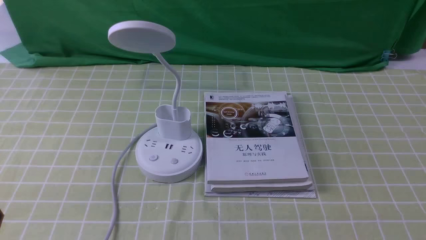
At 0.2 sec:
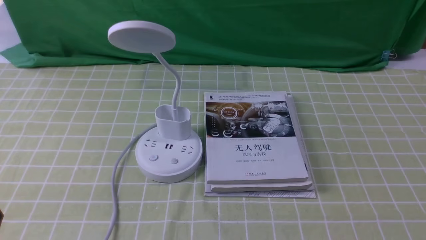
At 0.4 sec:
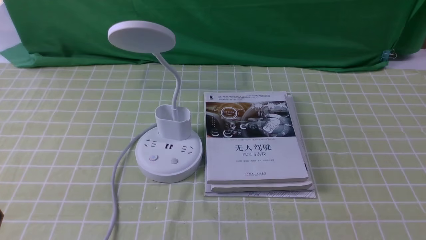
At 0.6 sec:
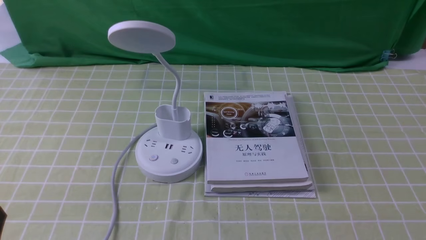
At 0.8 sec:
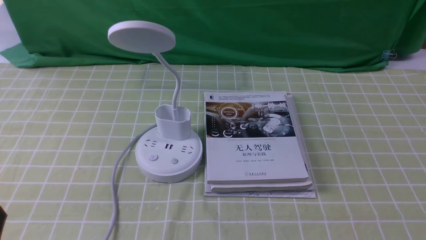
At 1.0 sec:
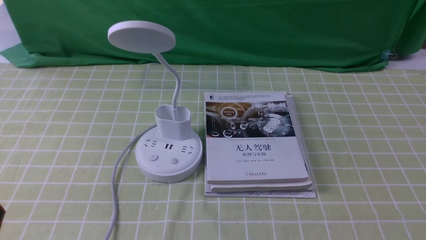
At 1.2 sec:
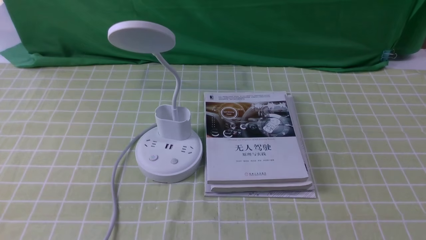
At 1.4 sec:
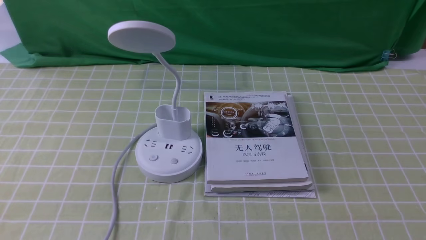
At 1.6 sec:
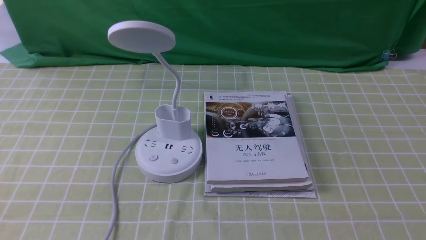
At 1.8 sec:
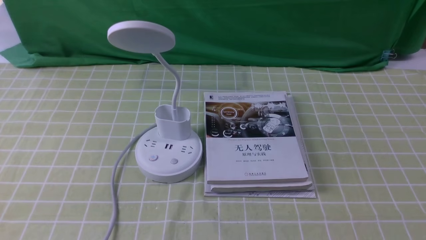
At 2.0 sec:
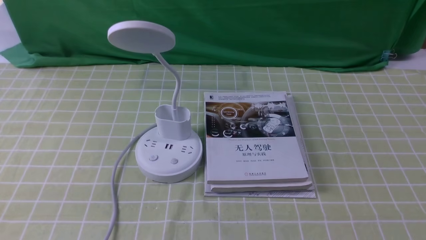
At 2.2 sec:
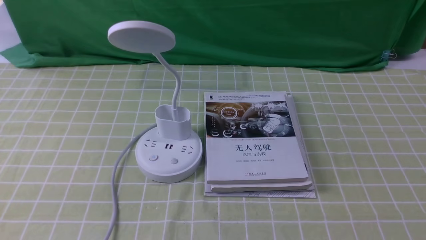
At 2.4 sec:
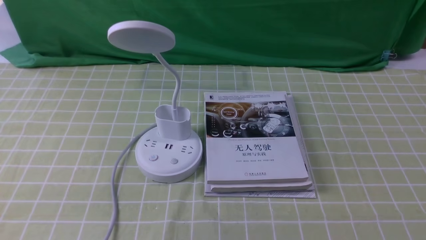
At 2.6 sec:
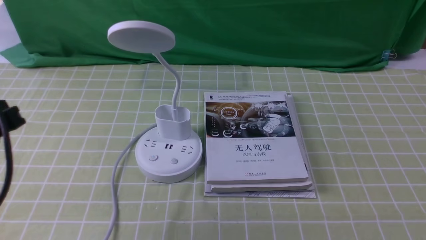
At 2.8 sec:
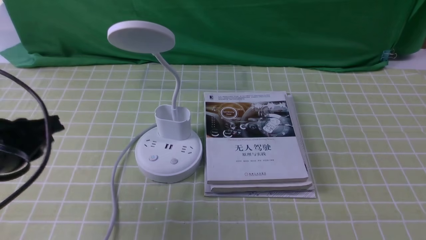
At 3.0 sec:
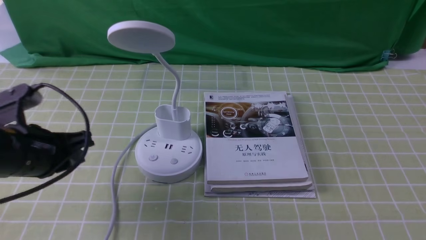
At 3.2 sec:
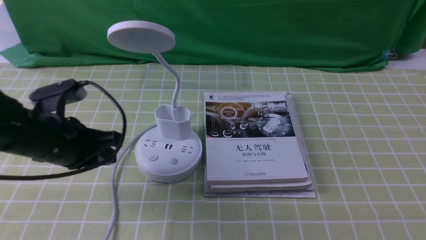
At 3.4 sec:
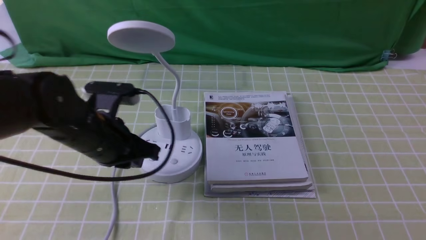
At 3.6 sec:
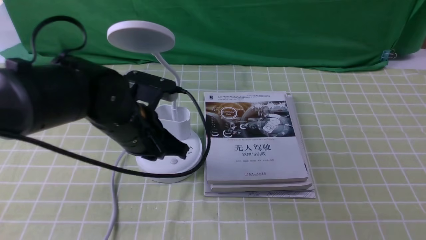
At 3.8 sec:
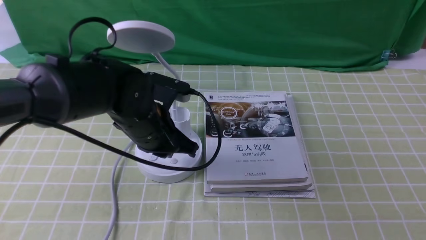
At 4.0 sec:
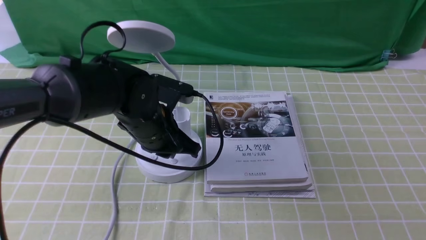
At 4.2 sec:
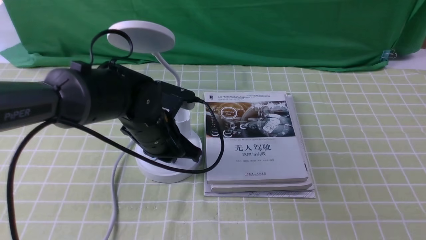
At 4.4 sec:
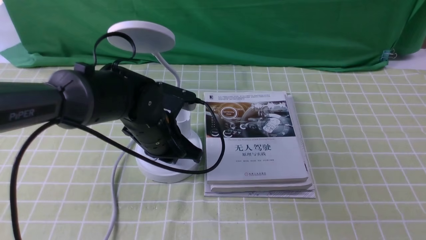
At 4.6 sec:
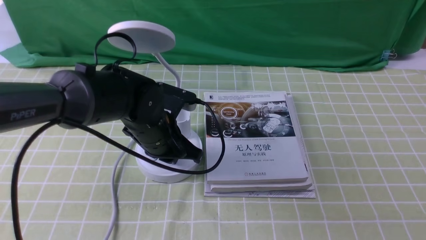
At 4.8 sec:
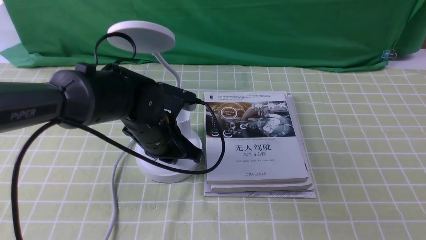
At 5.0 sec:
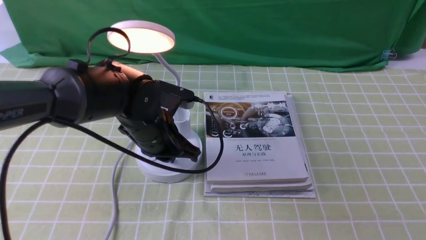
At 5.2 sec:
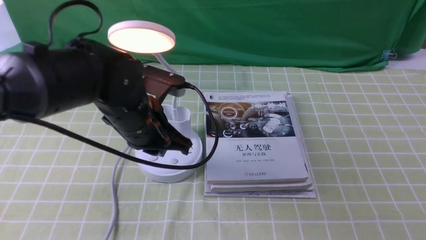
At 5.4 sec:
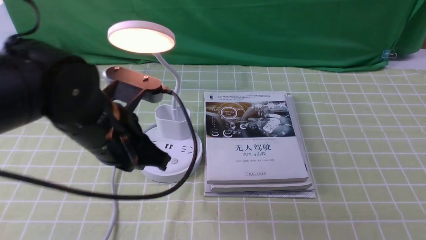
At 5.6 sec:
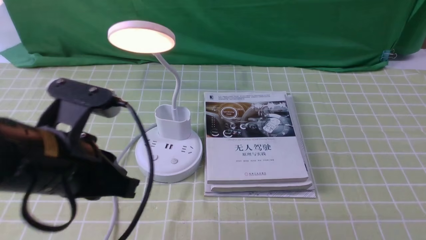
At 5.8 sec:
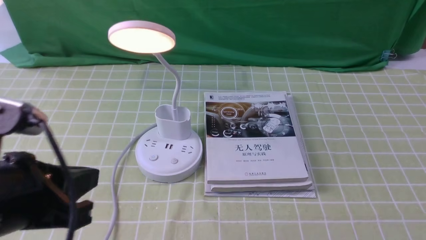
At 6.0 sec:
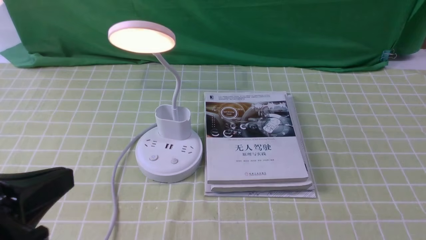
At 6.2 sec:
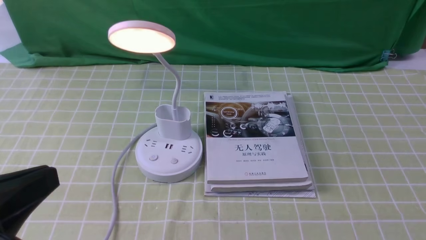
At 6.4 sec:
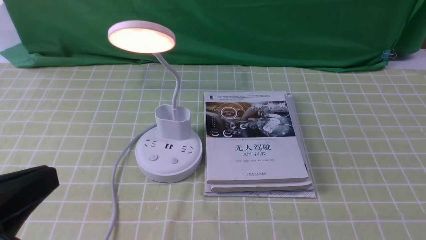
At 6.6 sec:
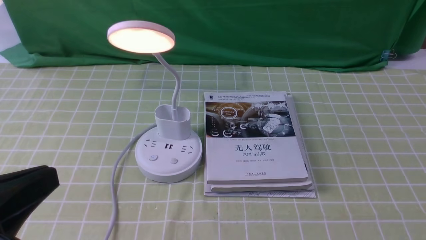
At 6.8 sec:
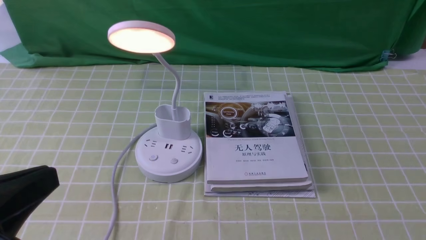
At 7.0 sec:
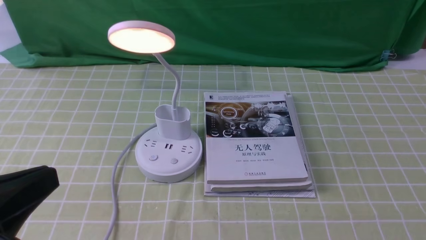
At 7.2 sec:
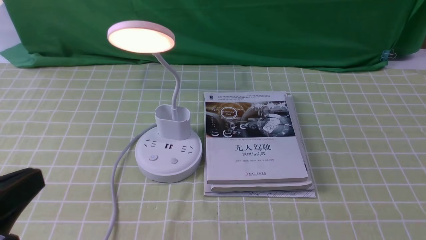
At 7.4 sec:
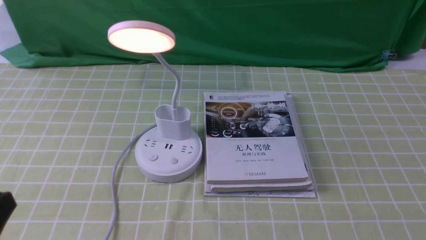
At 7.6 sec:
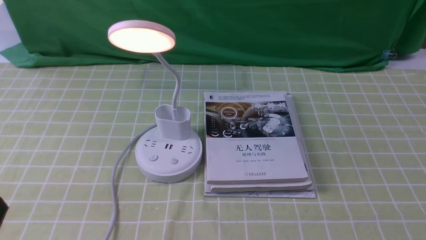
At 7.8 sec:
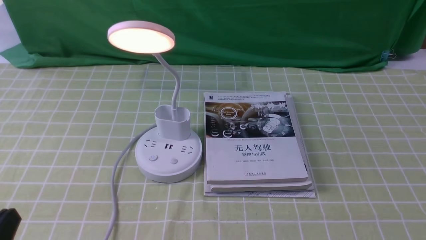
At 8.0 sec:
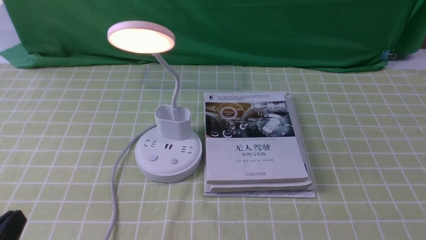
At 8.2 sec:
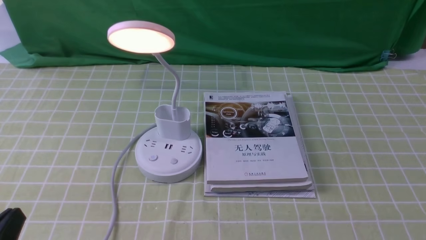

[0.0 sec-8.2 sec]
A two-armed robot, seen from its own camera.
Step, 0.0 sec to 5.2 sec: use the left arm to press the button switch on the lamp holder.
1.6 sec to 3.2 sec: The left gripper is displaced forward by some 20 cm.
3.2 sec to 5.0 sec: The left gripper goes some 10 cm to the right.
5.0 sec to 6.6 sec: The left gripper heads backward, to the left and upward, covering about 30 cm.
6.6 sec to 8.2 sec: The left gripper shifts about 10 cm downward.

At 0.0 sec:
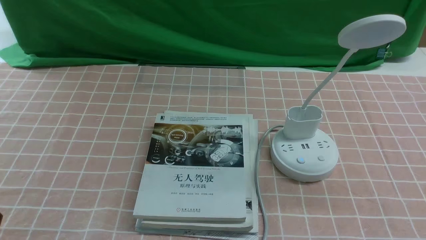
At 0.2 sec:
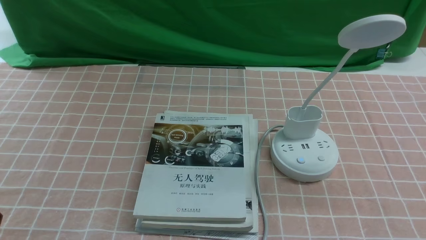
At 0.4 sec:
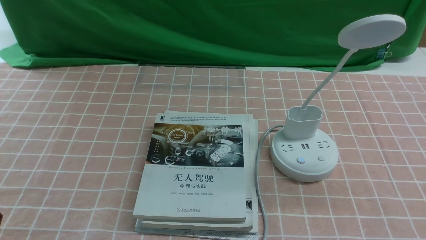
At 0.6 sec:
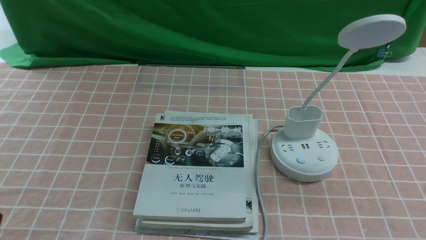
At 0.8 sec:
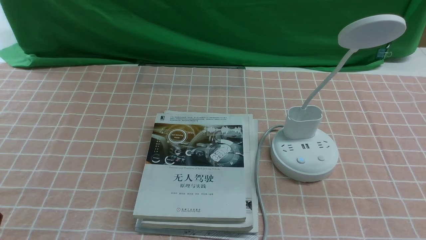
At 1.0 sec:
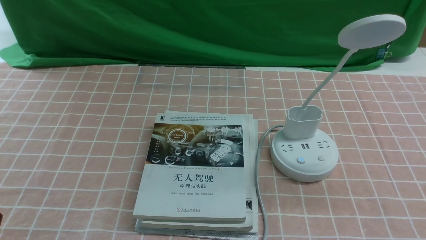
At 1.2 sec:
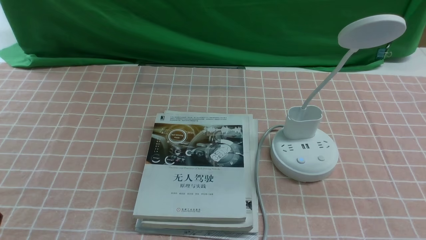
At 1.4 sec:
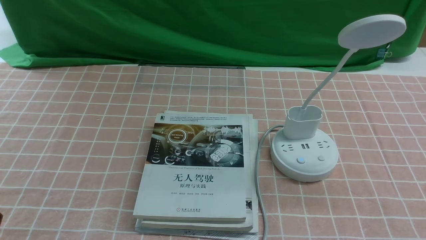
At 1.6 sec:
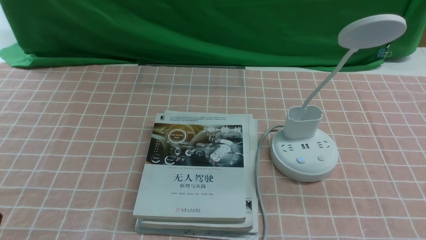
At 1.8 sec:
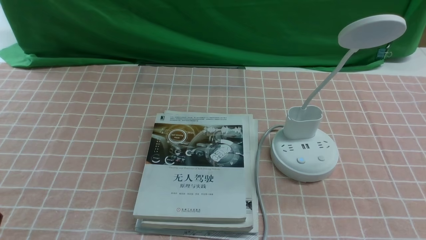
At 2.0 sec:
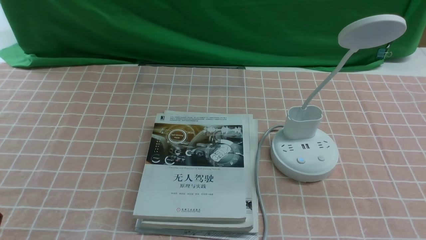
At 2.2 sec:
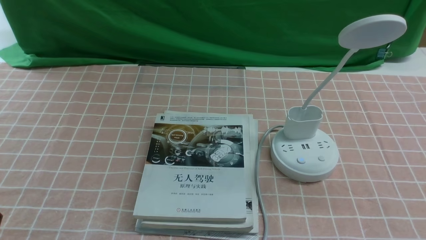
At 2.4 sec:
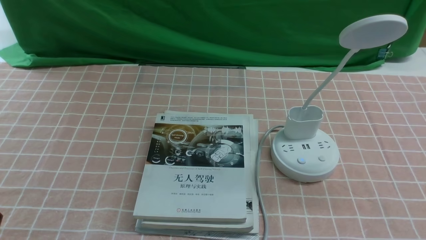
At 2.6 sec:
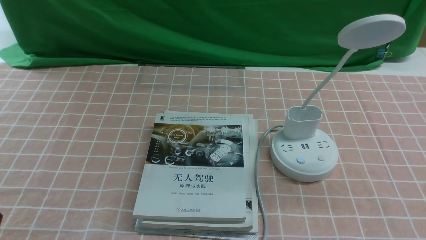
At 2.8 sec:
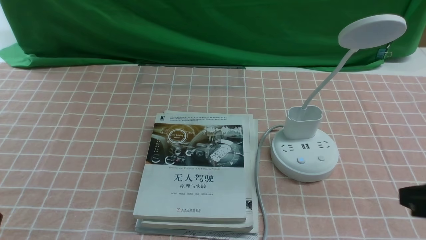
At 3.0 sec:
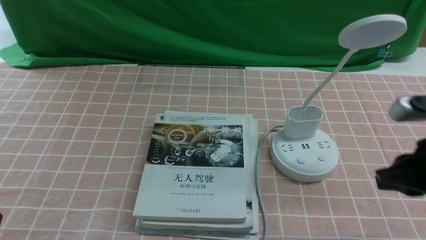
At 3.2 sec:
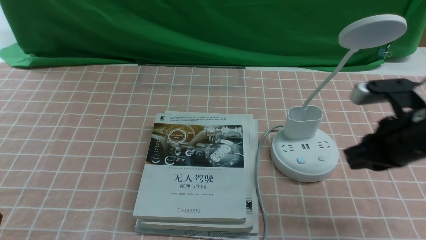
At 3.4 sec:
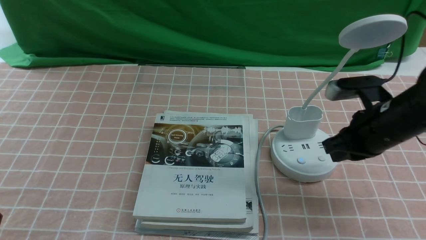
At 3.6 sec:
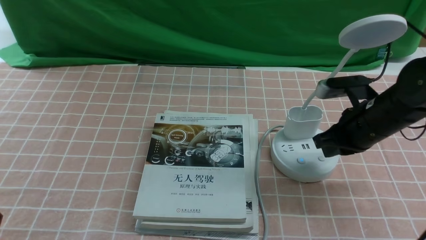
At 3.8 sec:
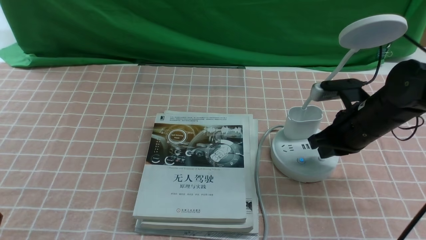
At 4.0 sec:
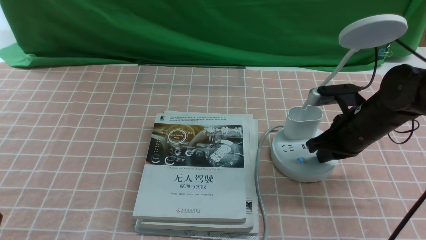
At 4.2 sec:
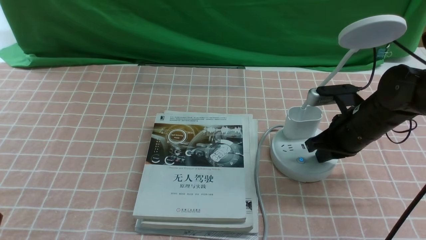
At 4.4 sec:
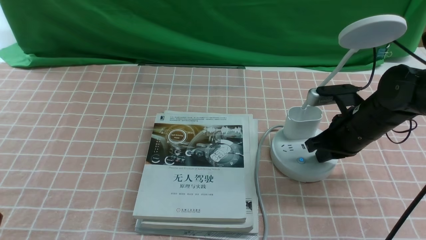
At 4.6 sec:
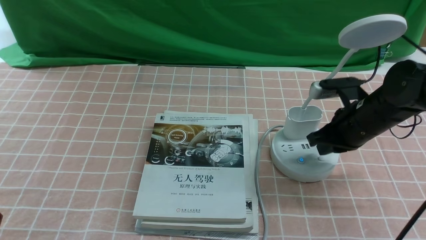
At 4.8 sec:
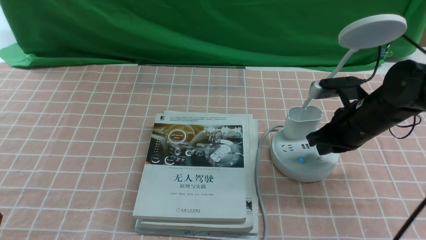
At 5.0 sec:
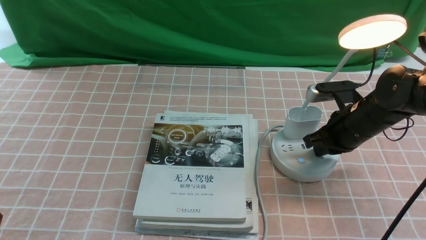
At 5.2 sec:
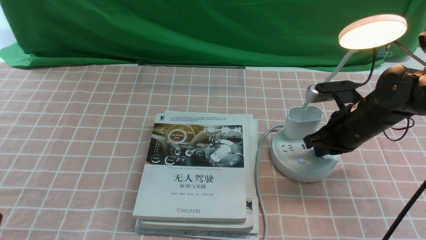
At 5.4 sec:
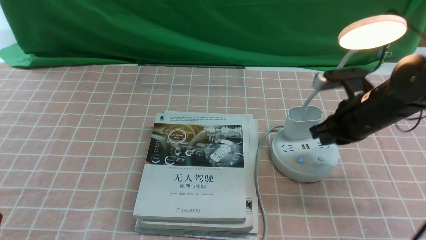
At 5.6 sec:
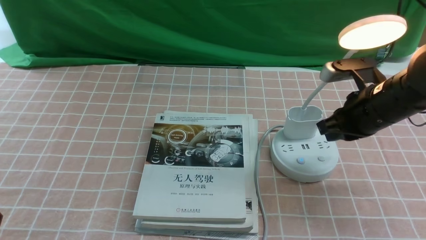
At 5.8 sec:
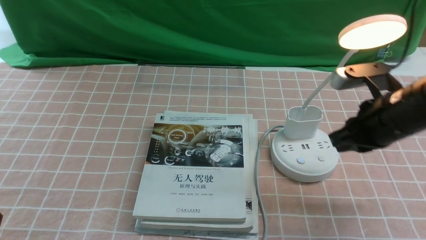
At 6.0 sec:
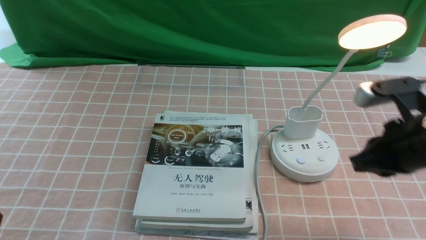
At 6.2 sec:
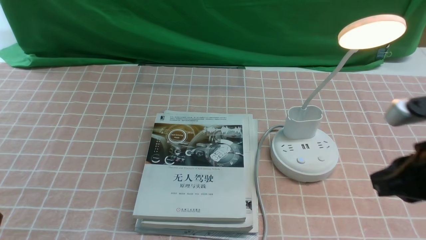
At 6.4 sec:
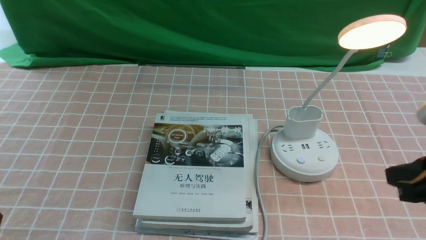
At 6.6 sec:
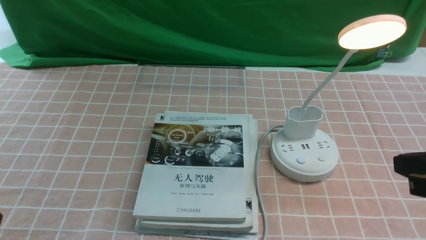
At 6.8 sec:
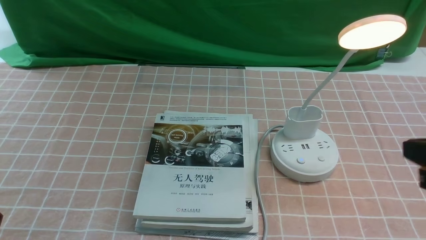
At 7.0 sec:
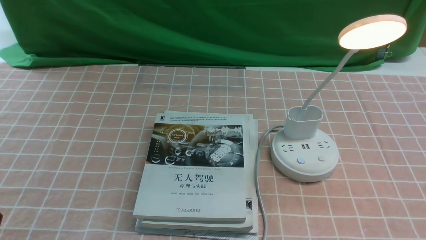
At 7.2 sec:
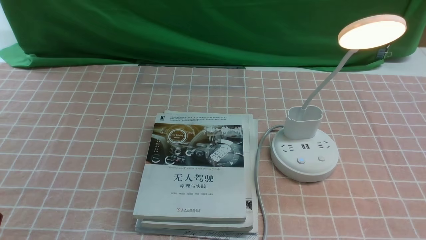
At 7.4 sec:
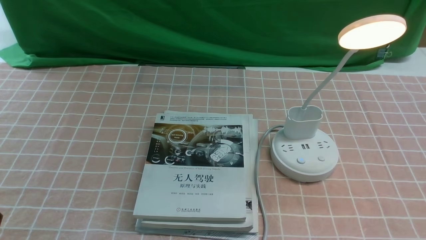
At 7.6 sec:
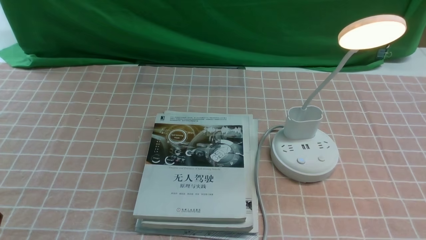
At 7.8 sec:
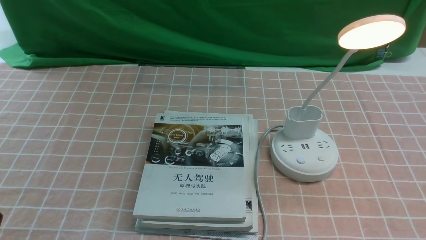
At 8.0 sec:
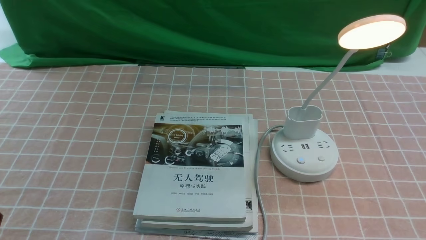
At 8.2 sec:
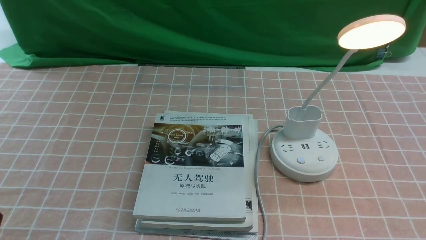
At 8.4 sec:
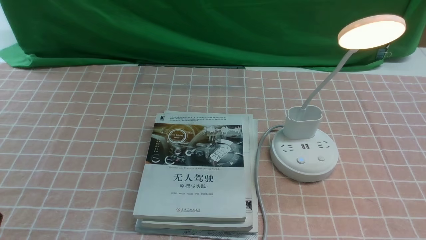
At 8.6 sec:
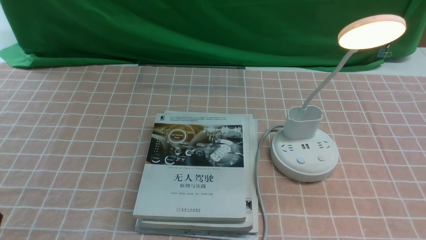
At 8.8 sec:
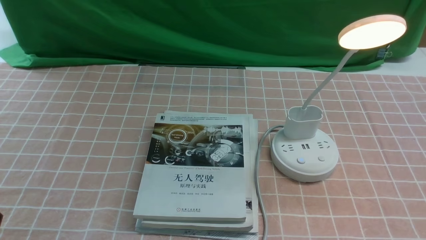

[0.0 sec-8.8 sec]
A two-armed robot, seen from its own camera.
Step, 0.0 sec to 5.2 sec: use the right arm to press the button switch on the lamp holder.
0.0 sec to 1.4 sec: The two grippers keep their place.
1.4 sec to 3.0 sec: The right gripper is displaced forward and upward by about 20 cm, and closes.
3.0 sec to 4.4 sec: The right gripper moves forward and downward, about 15 cm.
4.4 sec to 5.8 sec: The right gripper is displaced upward and backward by some 10 cm.
5.8 sec to 7.4 sec: The right gripper moves backward, roughly 20 cm.
7.4 sec to 8.8 sec: Neither gripper changes place.
